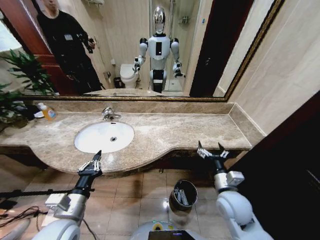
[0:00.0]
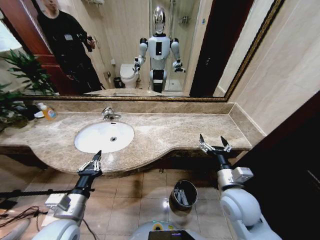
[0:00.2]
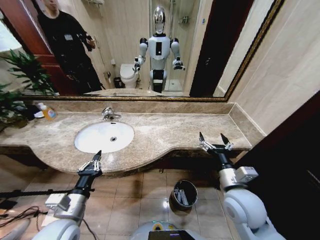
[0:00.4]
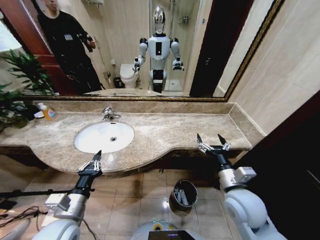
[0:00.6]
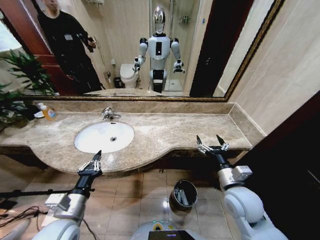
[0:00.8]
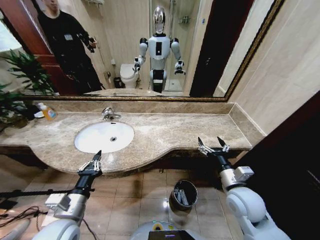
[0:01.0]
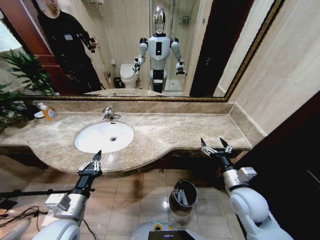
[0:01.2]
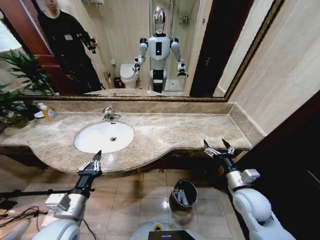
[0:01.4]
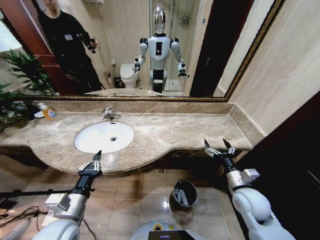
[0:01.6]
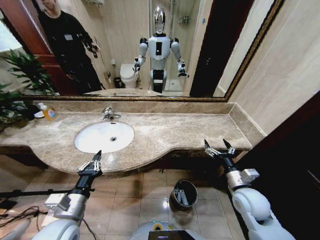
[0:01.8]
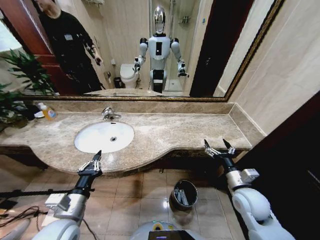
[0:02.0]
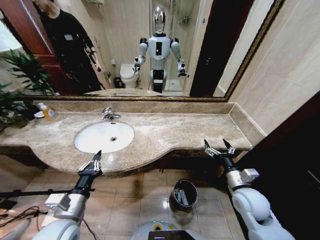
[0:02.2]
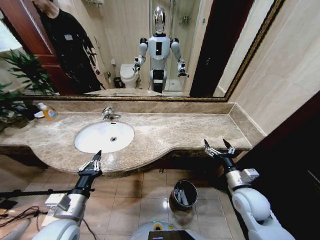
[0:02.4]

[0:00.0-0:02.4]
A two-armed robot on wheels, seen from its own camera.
Task of the whole recording: Pick up the trash from the sink and place it in the trash bin.
0:00.0 to 0:01.2: The right gripper ends up roughly 5 cm from where it was.
0:01.2 to 0:02.4: The grippers move only a little.
